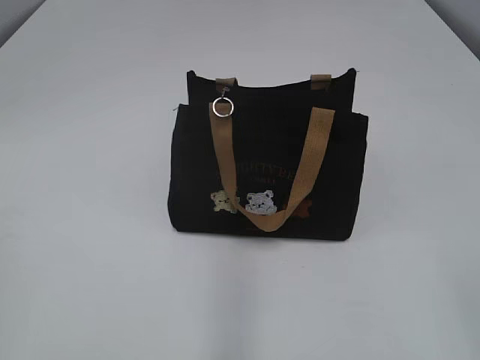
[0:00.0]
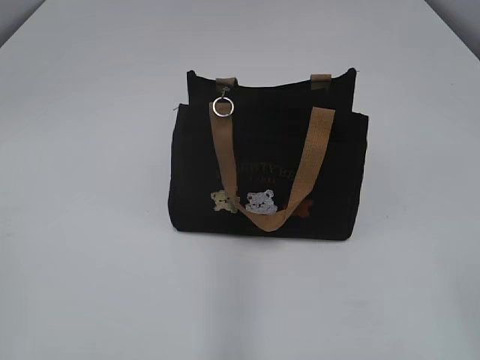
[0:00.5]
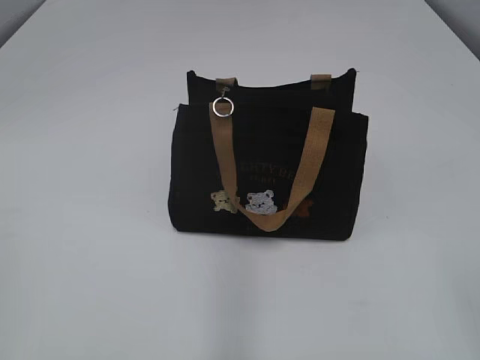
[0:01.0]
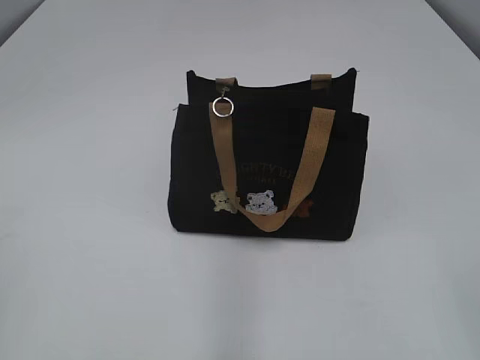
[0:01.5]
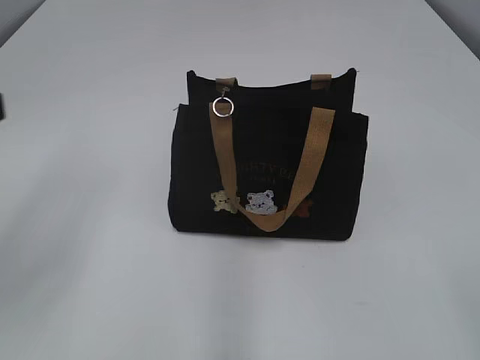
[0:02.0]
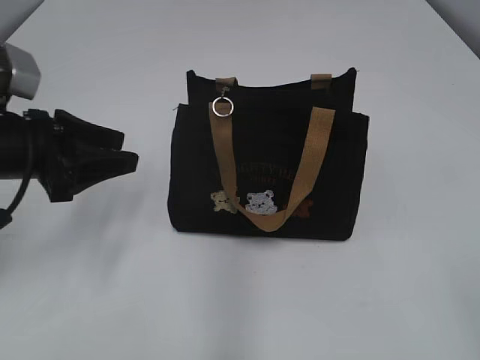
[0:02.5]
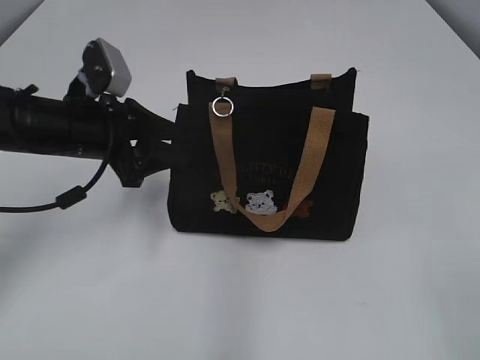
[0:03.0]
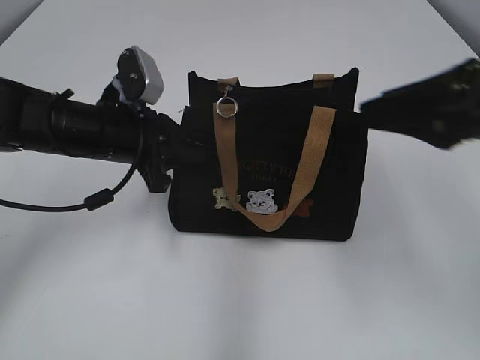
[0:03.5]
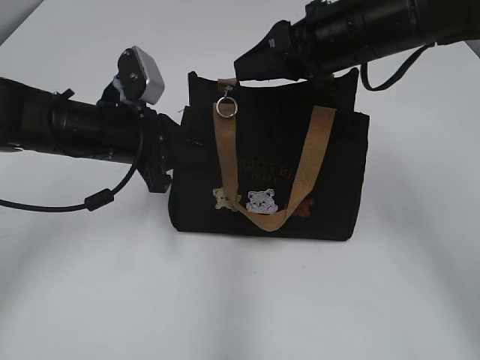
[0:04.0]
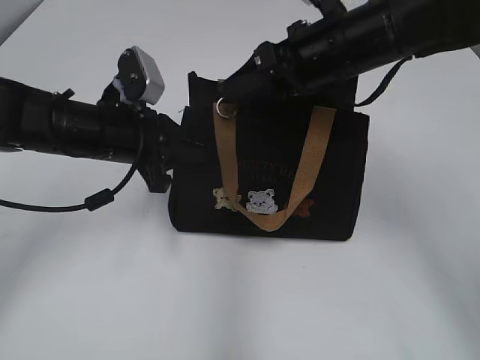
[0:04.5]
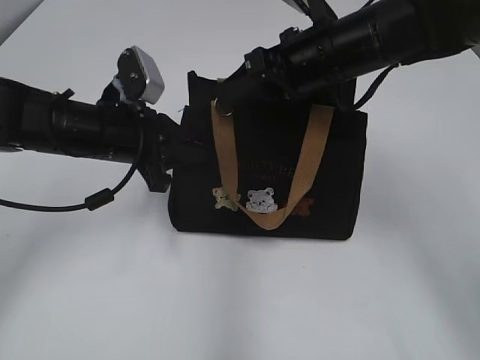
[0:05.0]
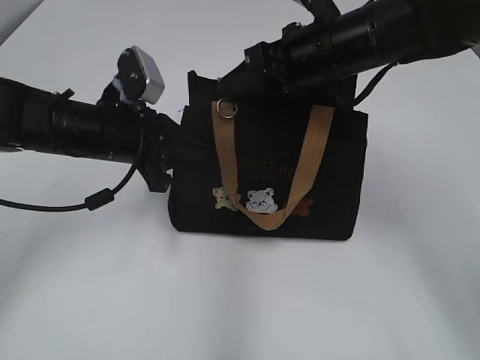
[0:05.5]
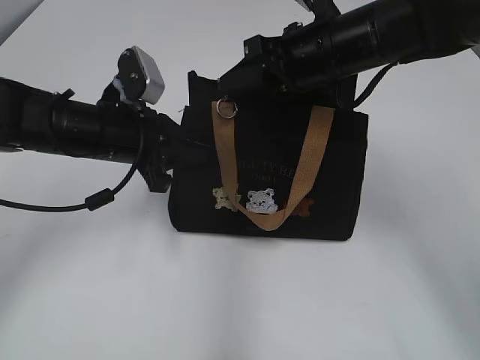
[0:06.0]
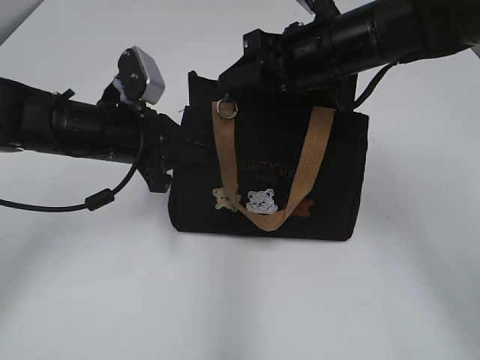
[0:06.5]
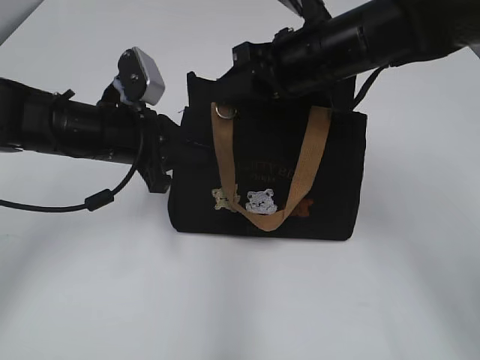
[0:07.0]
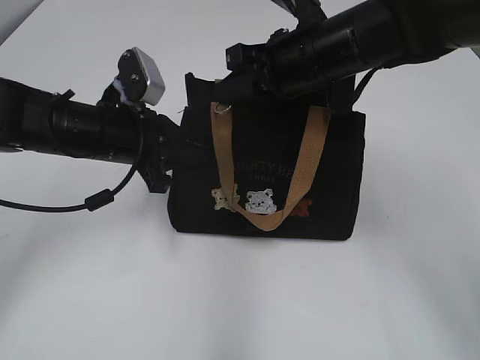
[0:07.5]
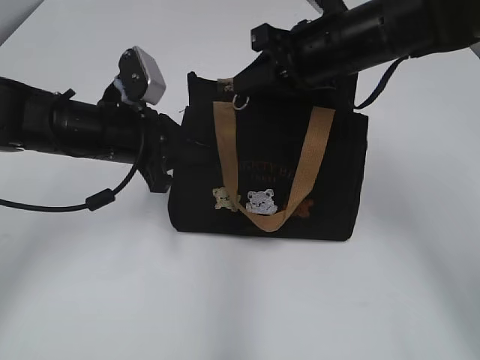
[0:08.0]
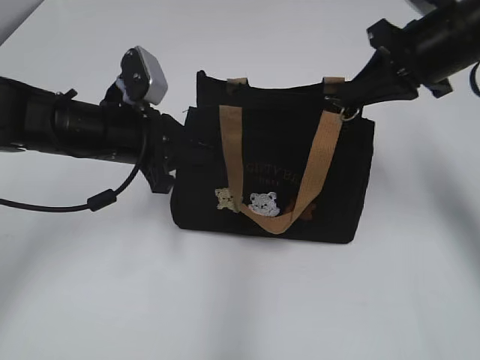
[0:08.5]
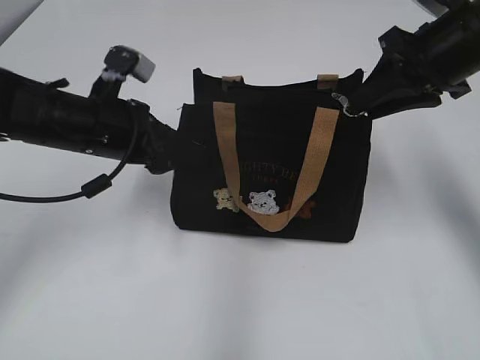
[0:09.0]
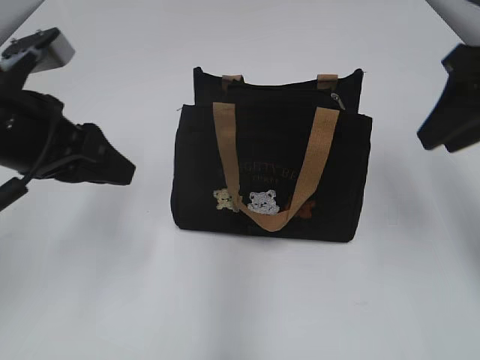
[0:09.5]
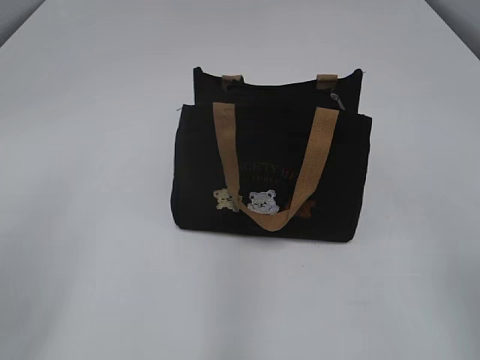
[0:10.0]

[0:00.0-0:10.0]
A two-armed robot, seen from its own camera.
Step, 0:00.0 to 0:09.0: Pull open the zipper with your right hand.
0:02.0 to 0:04.0: The left gripper heads forward, downward and to the right, covering approximately 25 cm, and closes its fingers. Meanwhile the right gripper shifts some 35 cm forward.
0:04.0 to 0:06.0: The grippers move only a little.
0:06.0 to 0:08.0: The right gripper closes its fingers.
0:08.0 to 0:10.0: The left gripper shifts about 25 cm backward, upward and to the left, and opens its fingers, while the right gripper shifts approximately 30 cm backward and to the right, and opens its fingers.

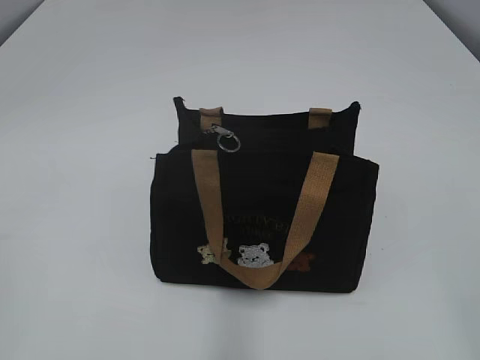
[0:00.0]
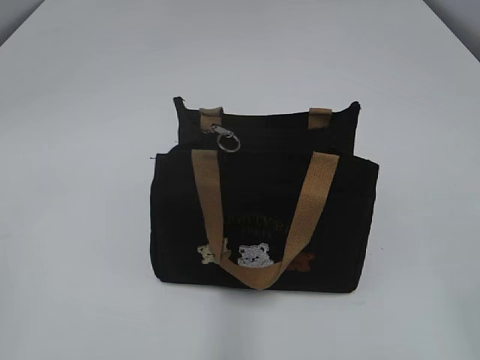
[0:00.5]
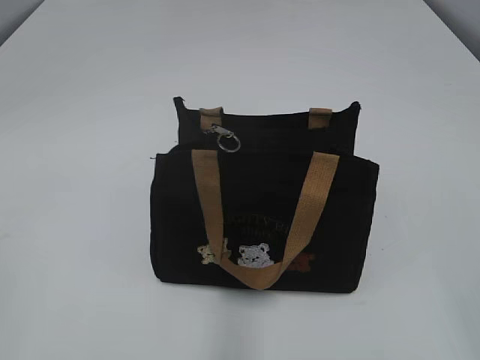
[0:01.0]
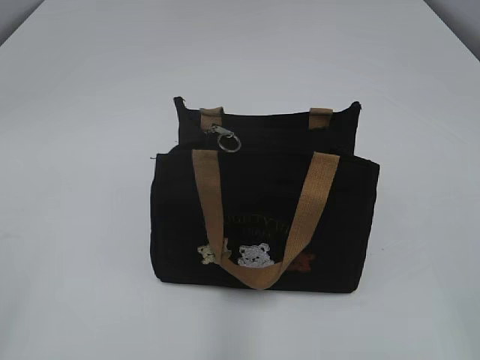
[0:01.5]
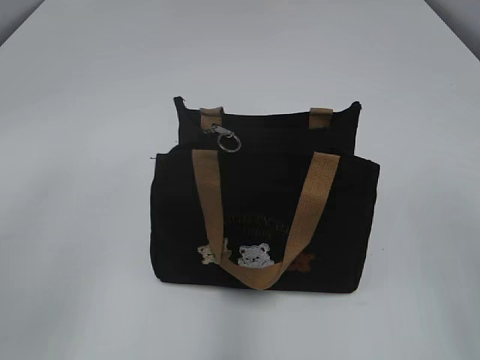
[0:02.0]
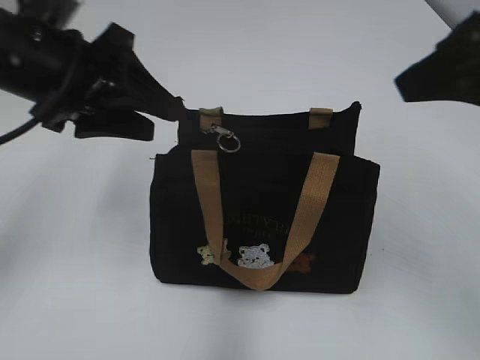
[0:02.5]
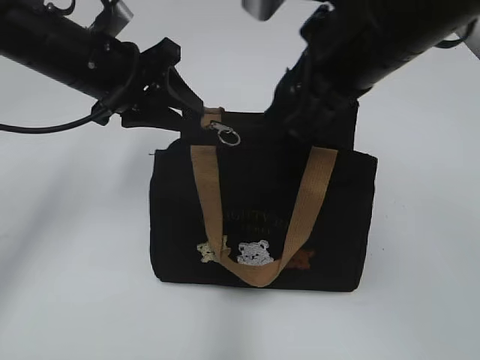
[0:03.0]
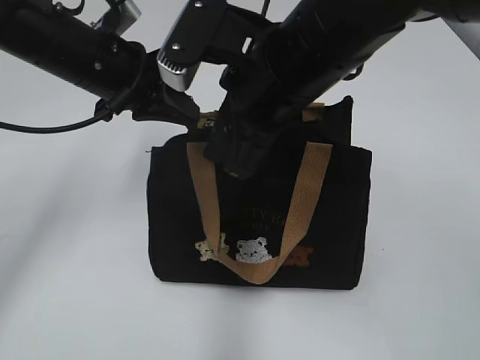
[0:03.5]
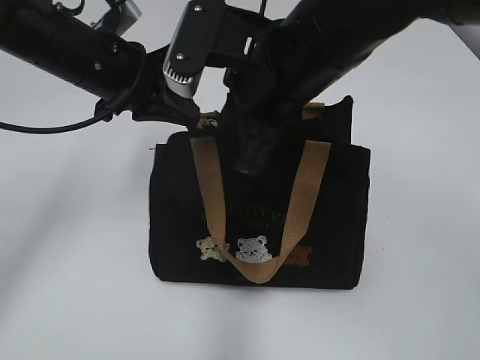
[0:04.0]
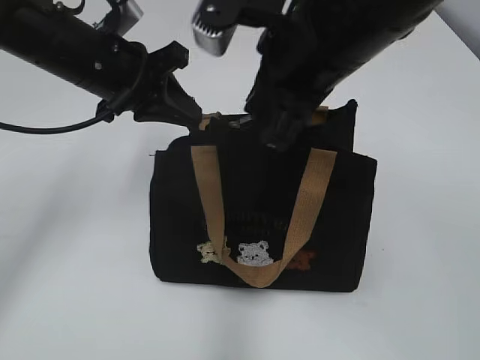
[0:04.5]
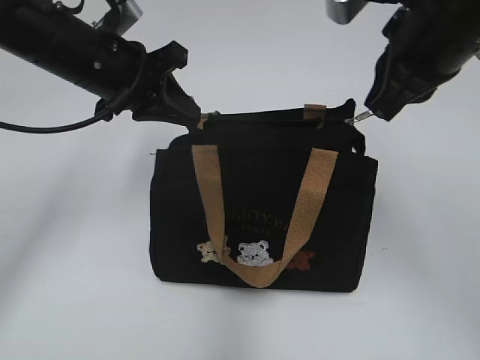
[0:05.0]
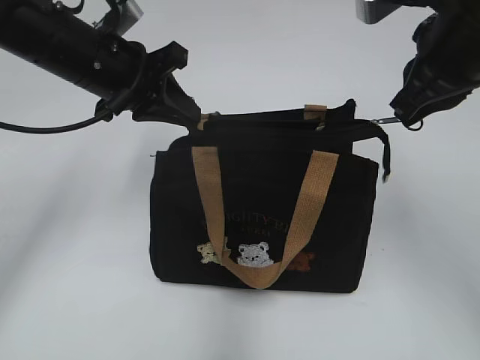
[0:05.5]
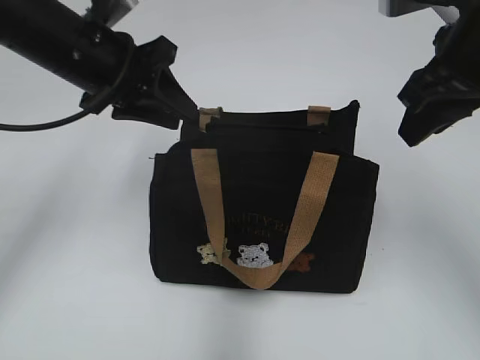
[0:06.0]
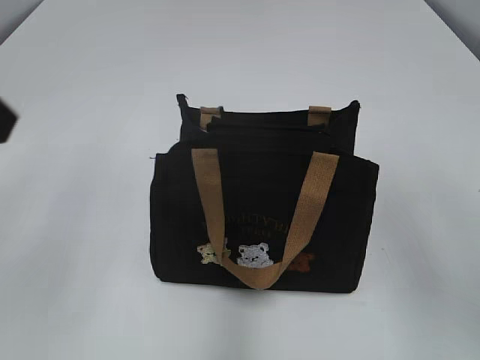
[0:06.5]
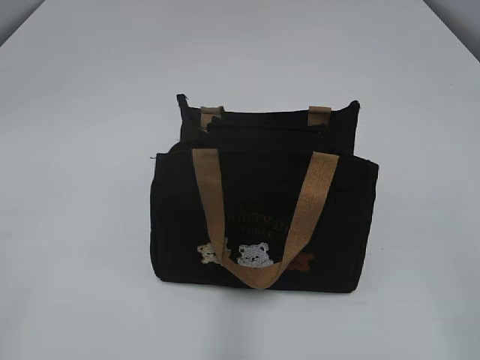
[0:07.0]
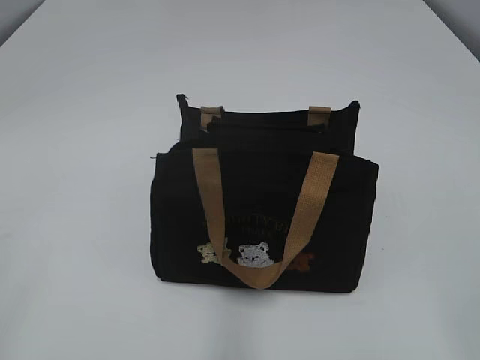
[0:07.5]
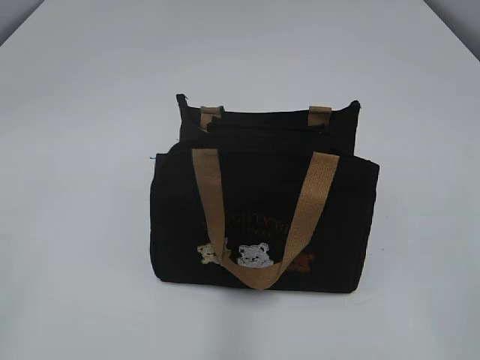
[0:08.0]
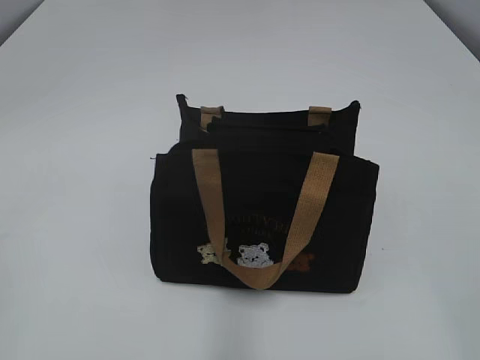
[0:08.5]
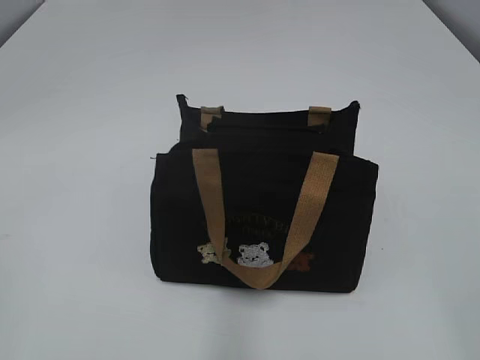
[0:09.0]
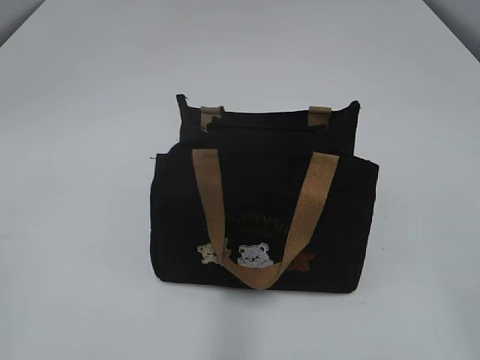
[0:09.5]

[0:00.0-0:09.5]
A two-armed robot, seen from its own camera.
Step, 0:00.0 to 0:05.5: Pull open the zipper with your right hand.
0:02.0 to 0:04.0: The right gripper travels forward and to the left by roughly 30 cm, and closes up; the left gripper moves forward, downward and to the right, roughly 30 cm, and closes up.
0:04.0 to 0:05.5: The right gripper shifts some 15 cm to the right.
0:05.5 to 0:07.5: The left gripper is displaced backward and to the left by about 40 cm, and opens. The right gripper shifts some 30 cm backward, and opens its fingers.

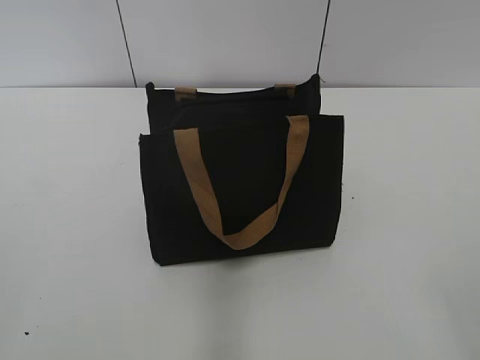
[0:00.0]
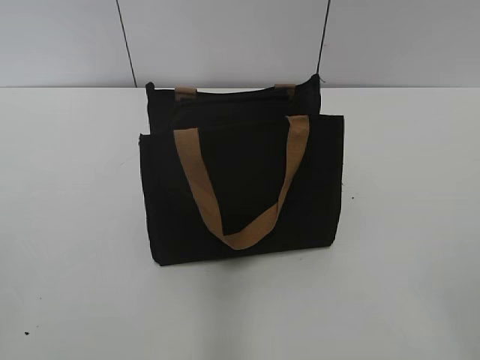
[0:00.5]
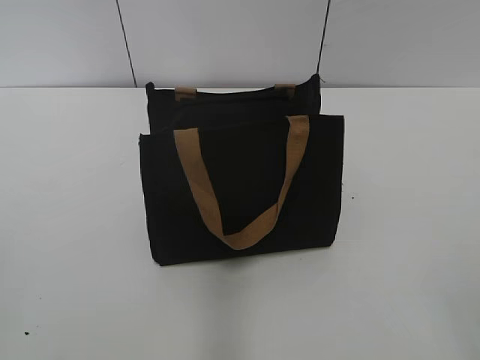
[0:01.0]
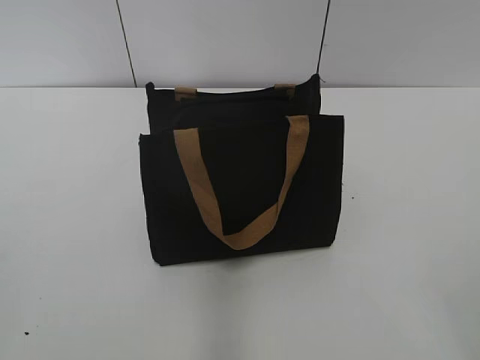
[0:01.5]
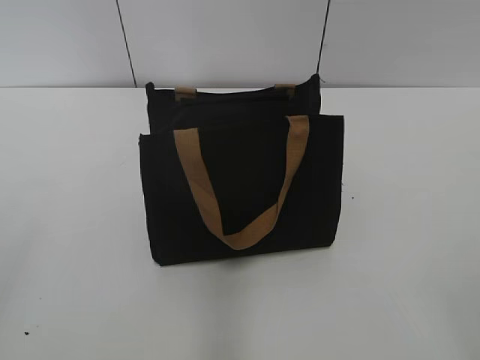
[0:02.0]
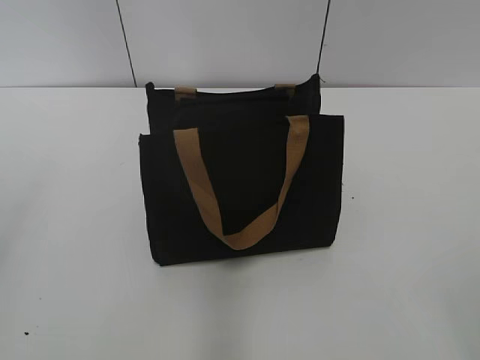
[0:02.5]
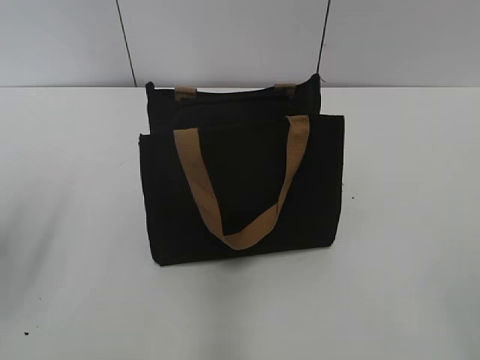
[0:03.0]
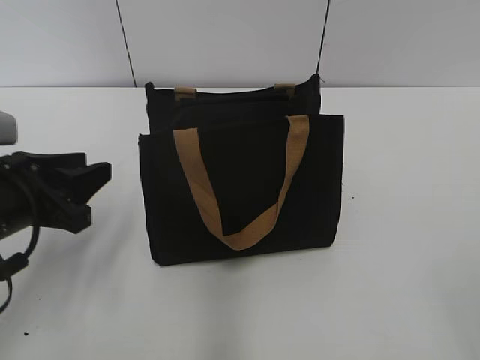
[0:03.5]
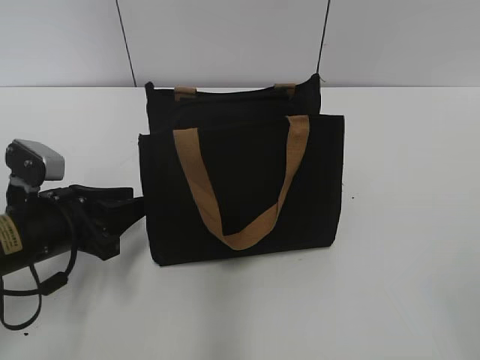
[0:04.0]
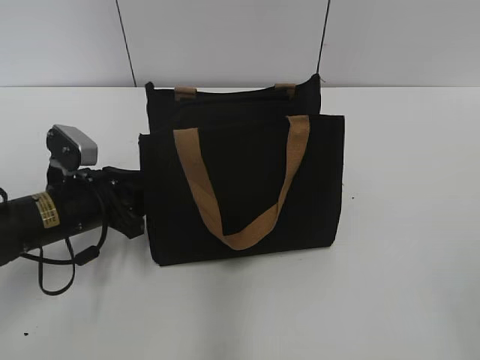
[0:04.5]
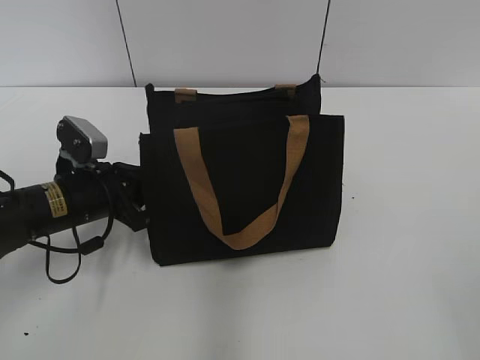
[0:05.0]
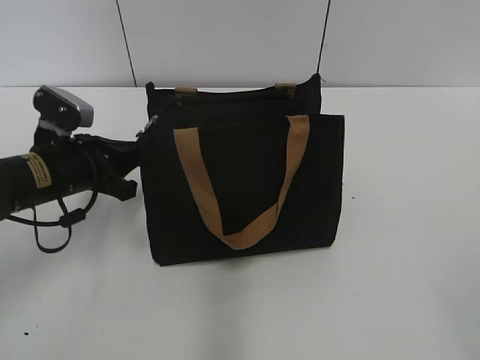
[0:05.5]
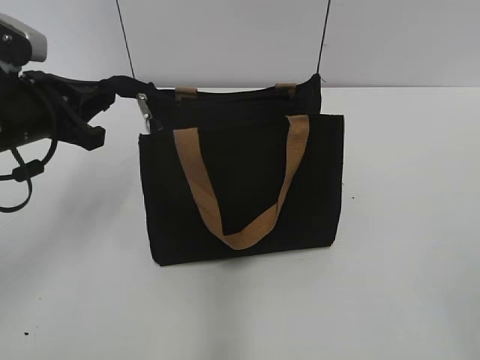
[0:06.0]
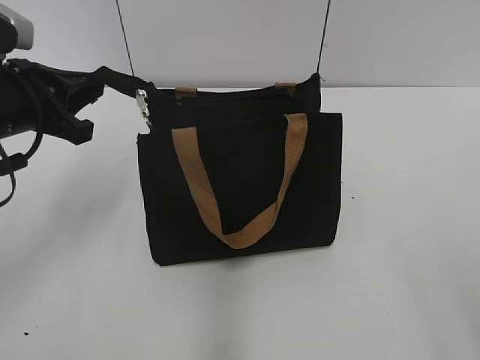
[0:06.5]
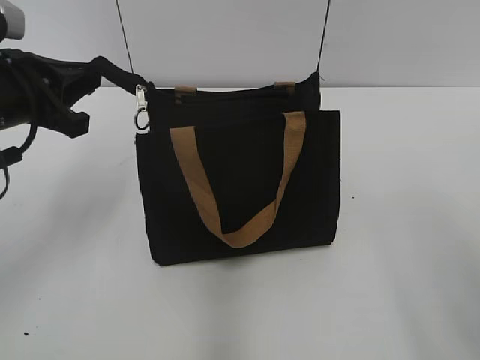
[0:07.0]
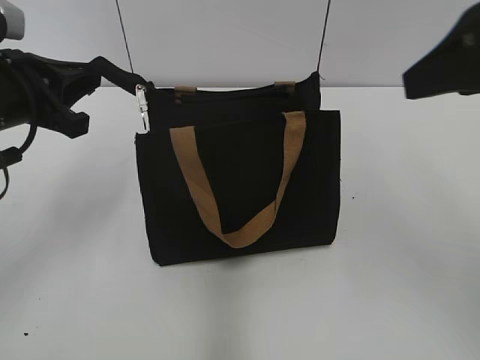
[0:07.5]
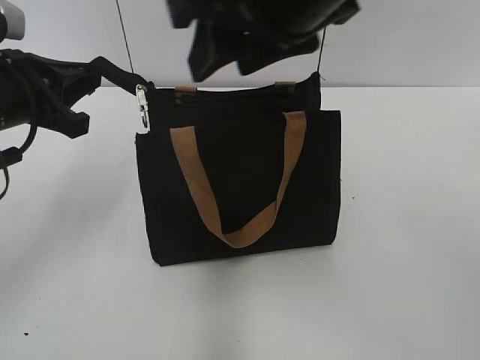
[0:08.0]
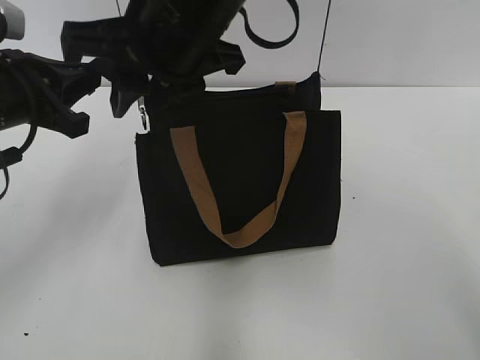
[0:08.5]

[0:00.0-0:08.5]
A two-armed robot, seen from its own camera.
0:02.0 to 0:04.0: The left gripper moves forward, downward and to the right, approximately 30 cm, and closes up.
0:04.0 to 0:06.5: The left gripper moves upward, some 10 cm, and closes.
0:06.5 to 0:08.5: The right gripper shifts some 40 cm to the left and forward, and closes.
